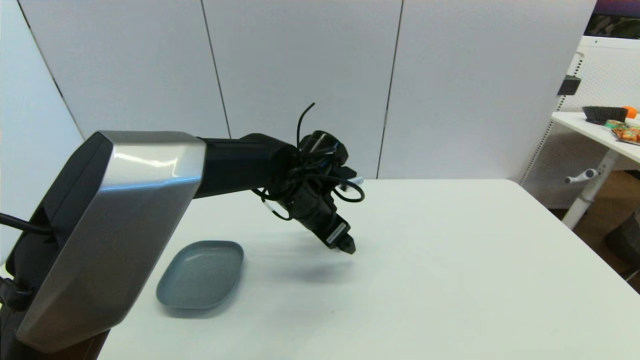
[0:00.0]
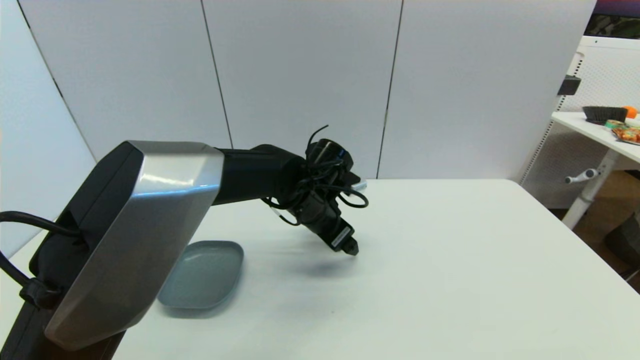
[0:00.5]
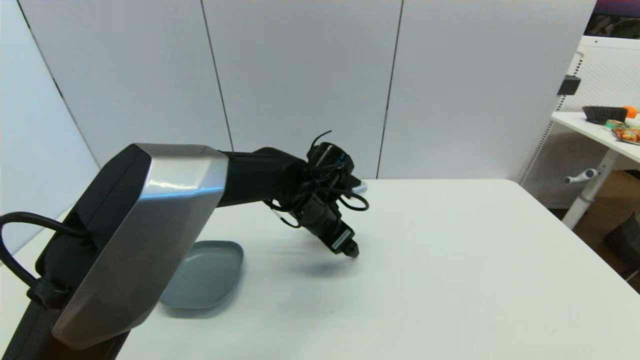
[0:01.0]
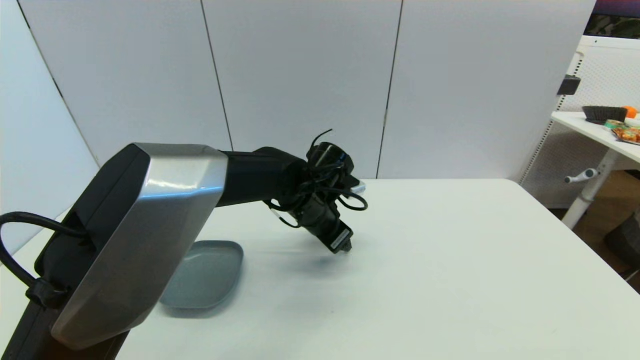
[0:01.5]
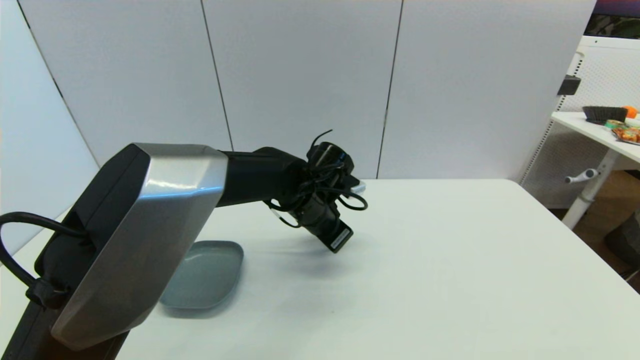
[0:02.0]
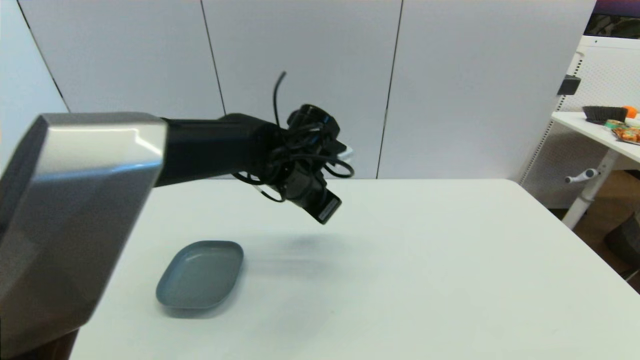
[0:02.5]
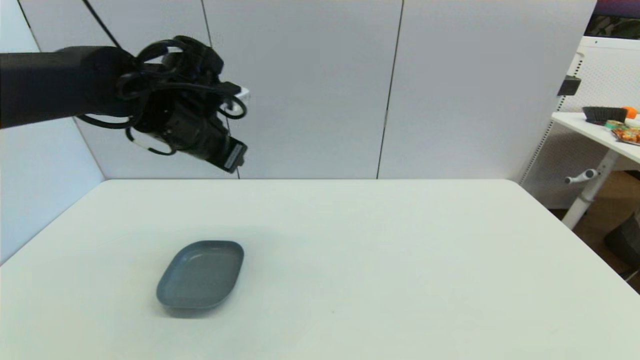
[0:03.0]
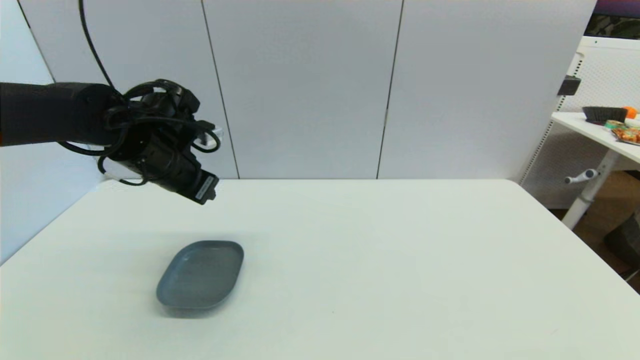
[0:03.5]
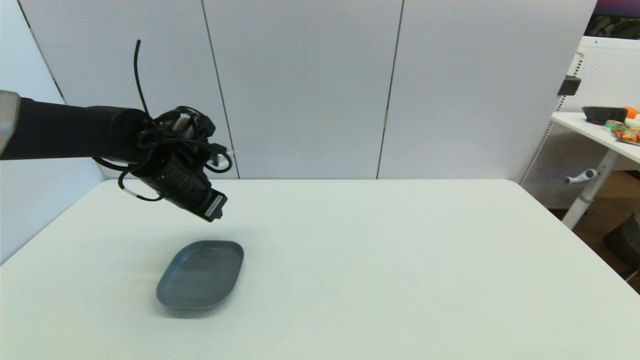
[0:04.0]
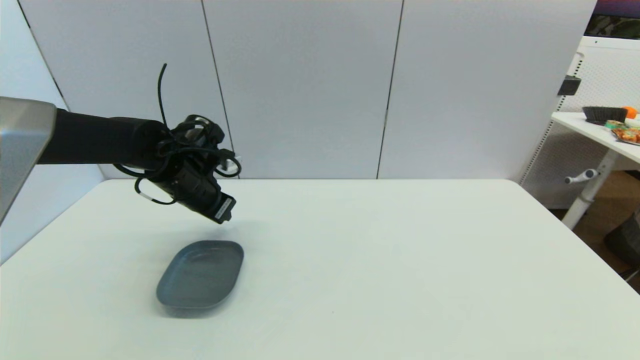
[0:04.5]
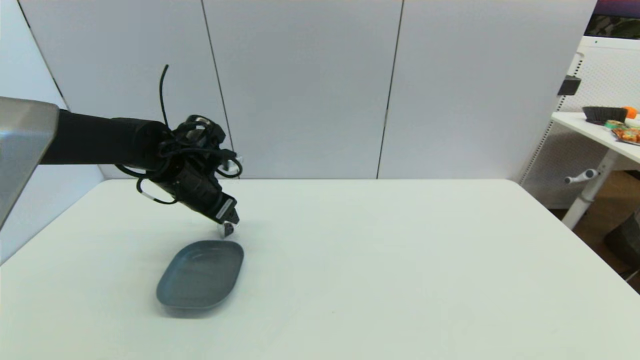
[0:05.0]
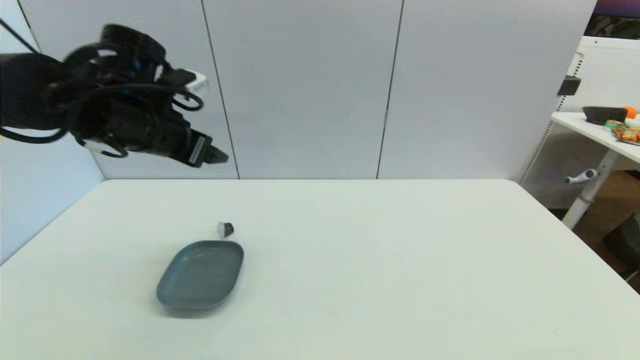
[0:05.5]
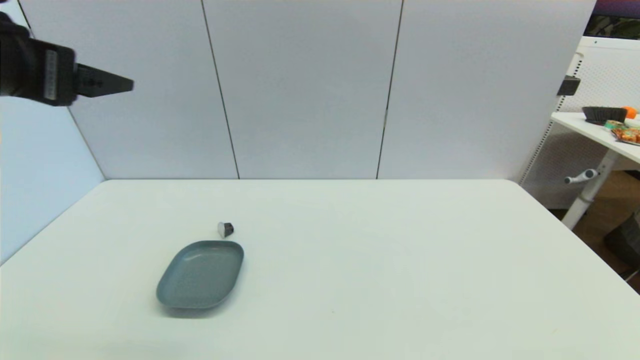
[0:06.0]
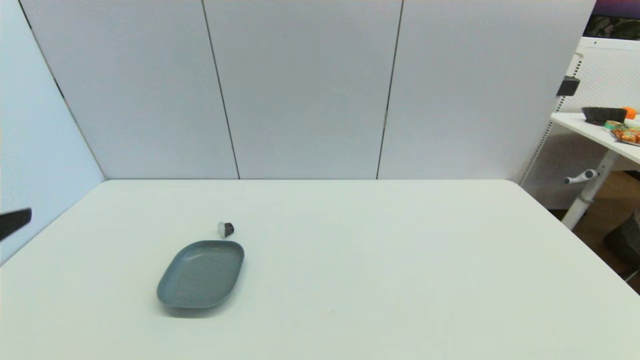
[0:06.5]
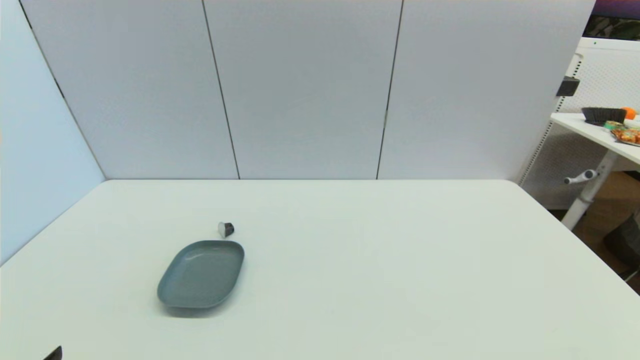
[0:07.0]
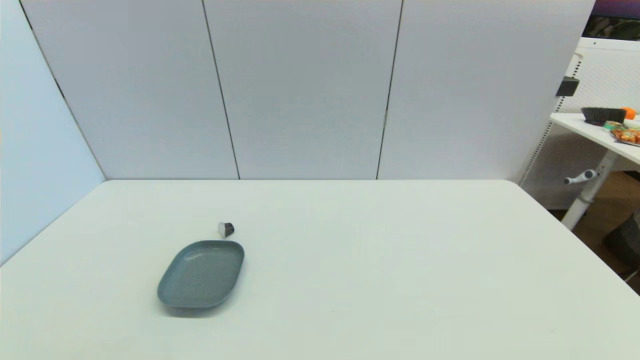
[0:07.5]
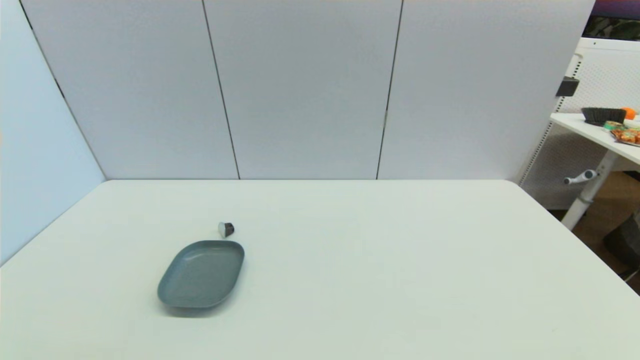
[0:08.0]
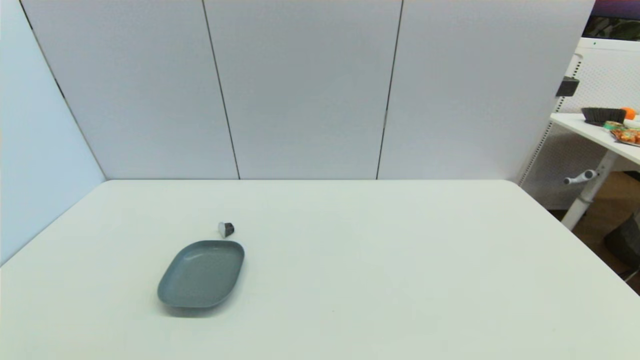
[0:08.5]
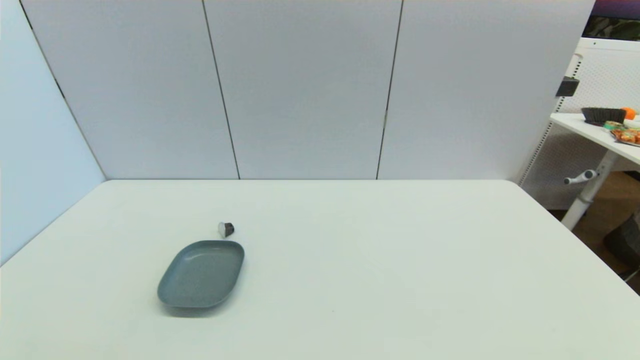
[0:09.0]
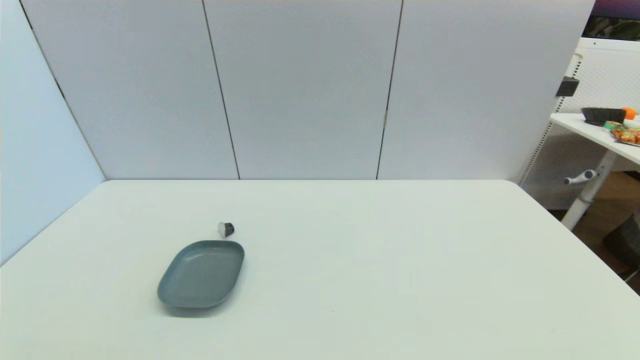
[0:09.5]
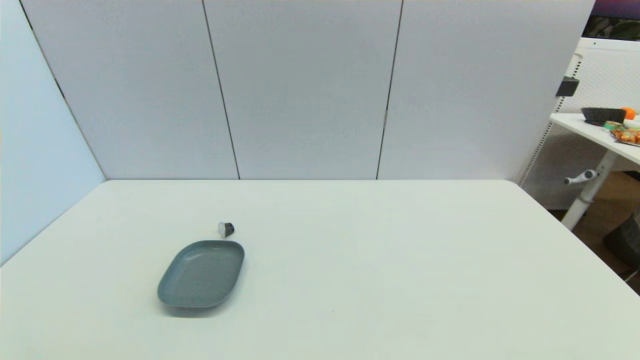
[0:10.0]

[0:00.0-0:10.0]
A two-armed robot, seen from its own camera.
Step, 0:00.0 to 0:02.5: Grasp the coffee capsule with left gripper.
Step, 0:03.0 to 0:04.5: Place the coffee capsule on the table with left gripper.
0:00.0 to 0:02.0: The left gripper closes its fingers.
0:02.0 to 0:04.0: The left gripper shifts about 20 cm to the left.
0:04.0 to 0:06.0: The left gripper shifts some 25 cm upward and backward, and opens.
0:06.0 to 0:08.0: The left gripper travels downward and backward by some 35 cm.
0:08.0 to 0:10.0: Both grippers stay put.
